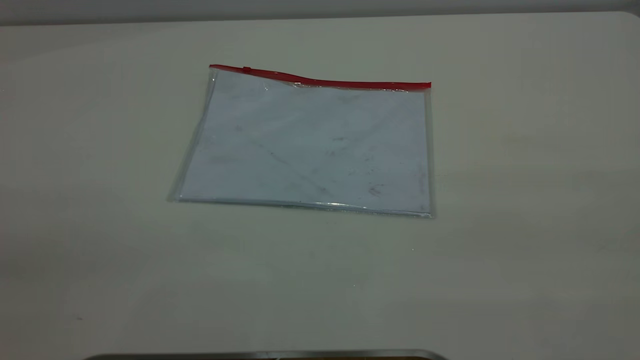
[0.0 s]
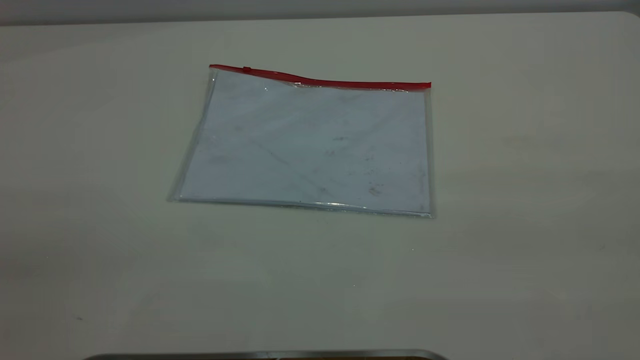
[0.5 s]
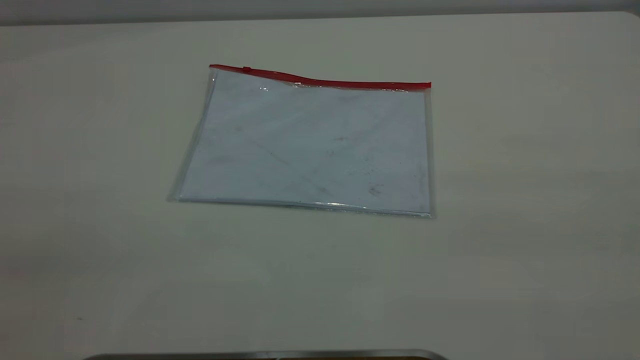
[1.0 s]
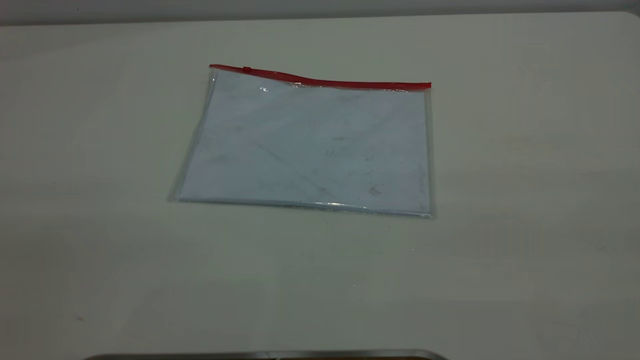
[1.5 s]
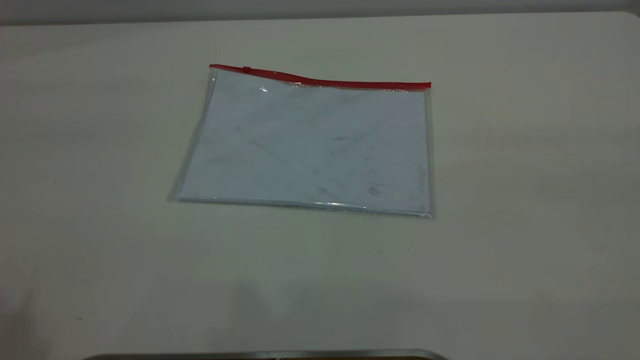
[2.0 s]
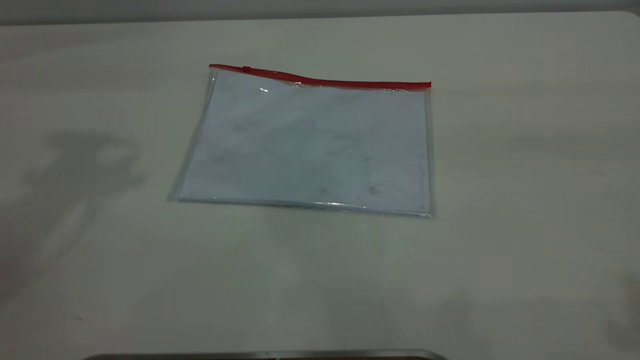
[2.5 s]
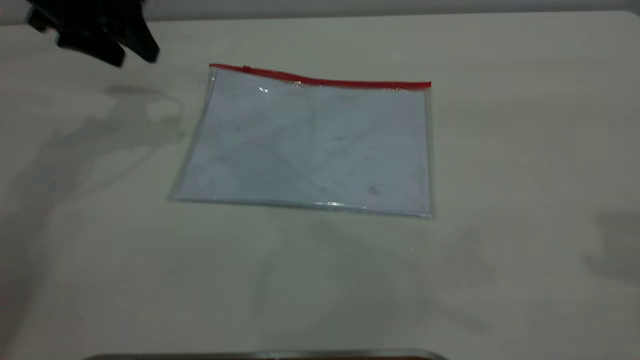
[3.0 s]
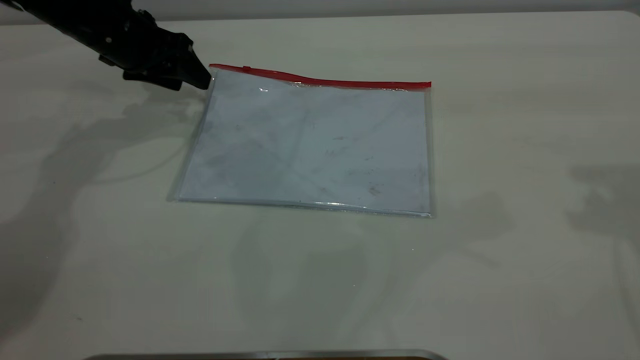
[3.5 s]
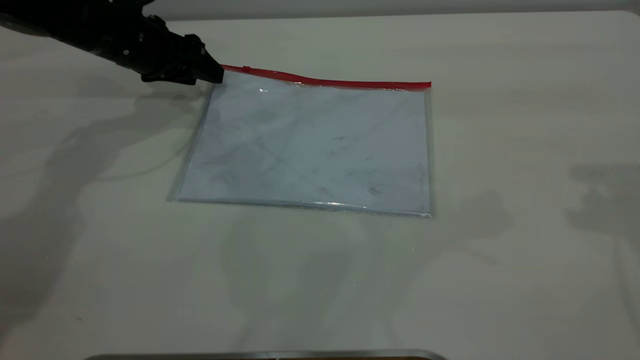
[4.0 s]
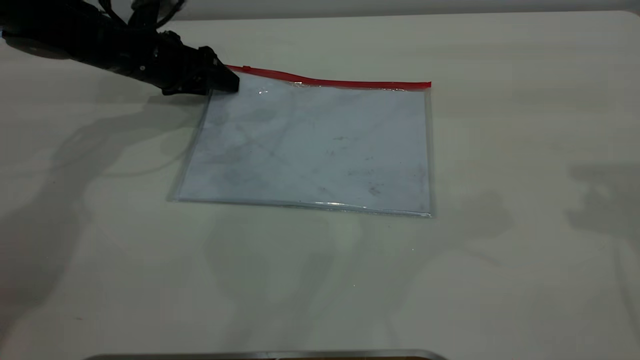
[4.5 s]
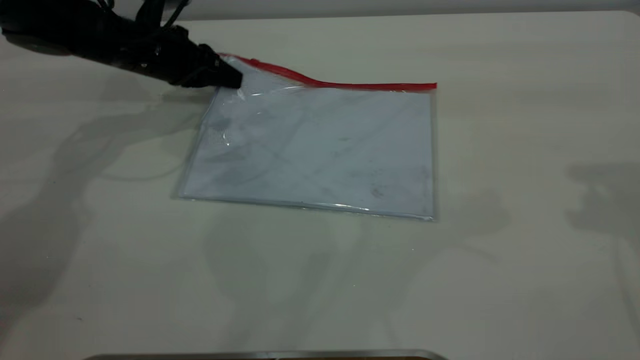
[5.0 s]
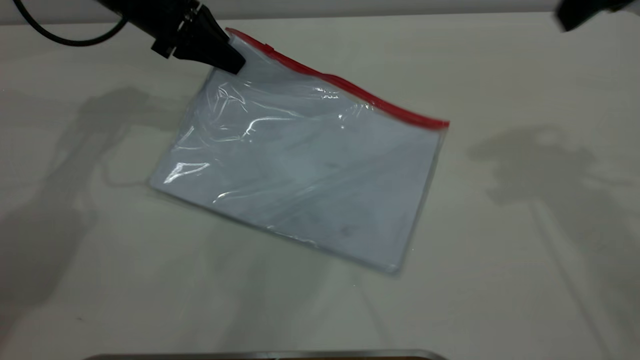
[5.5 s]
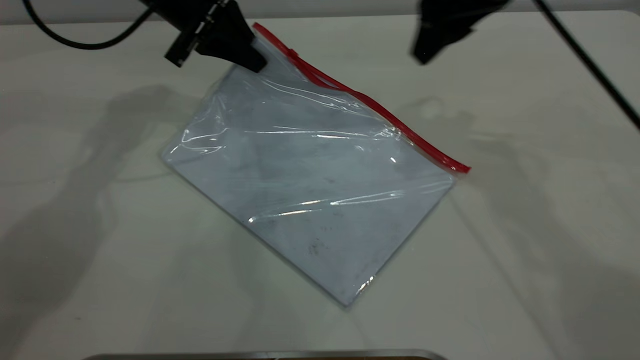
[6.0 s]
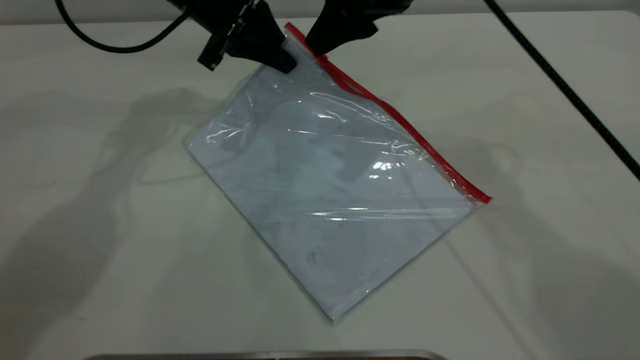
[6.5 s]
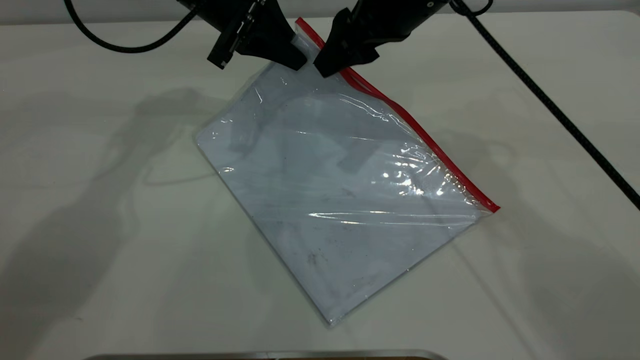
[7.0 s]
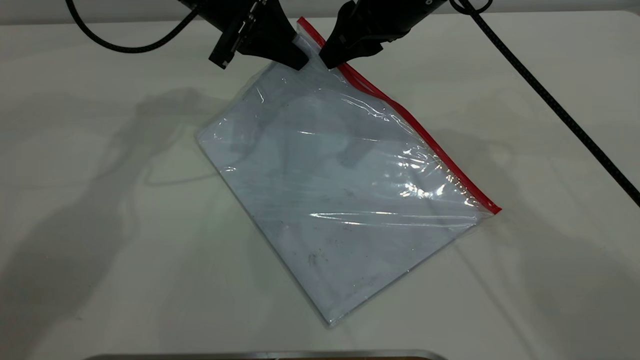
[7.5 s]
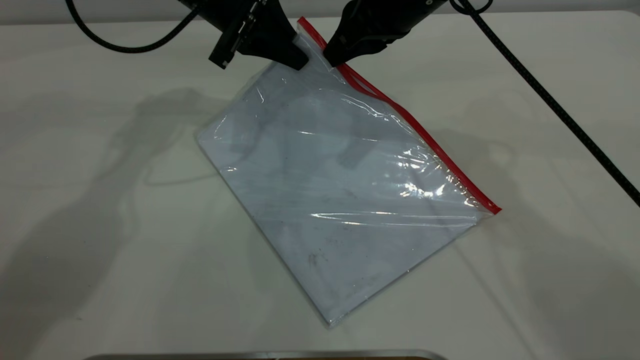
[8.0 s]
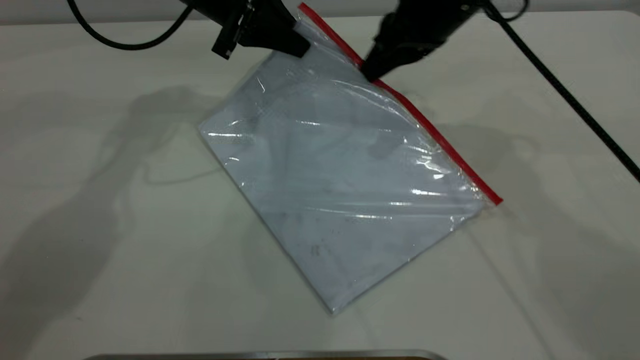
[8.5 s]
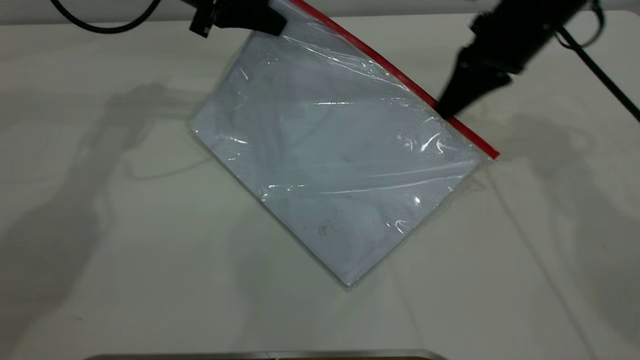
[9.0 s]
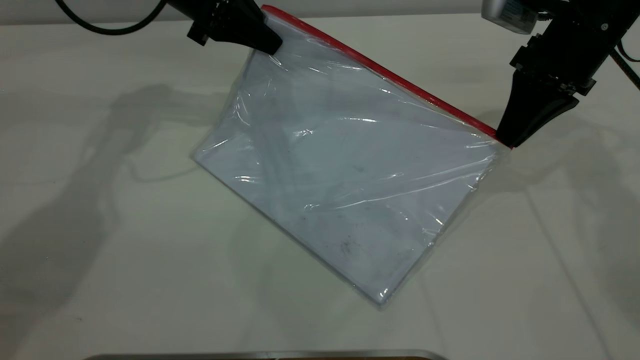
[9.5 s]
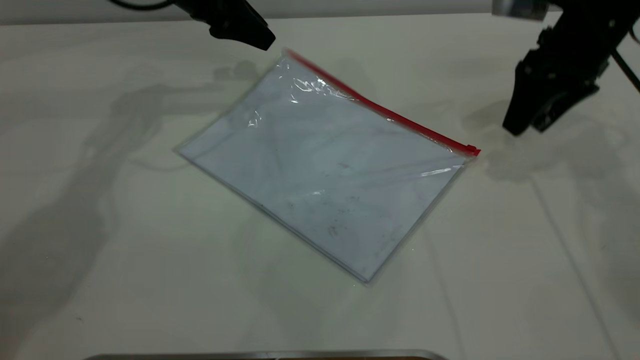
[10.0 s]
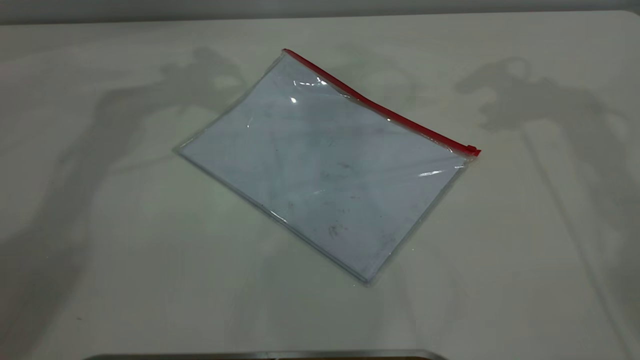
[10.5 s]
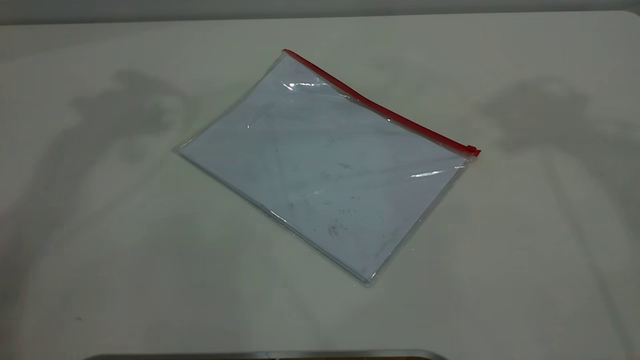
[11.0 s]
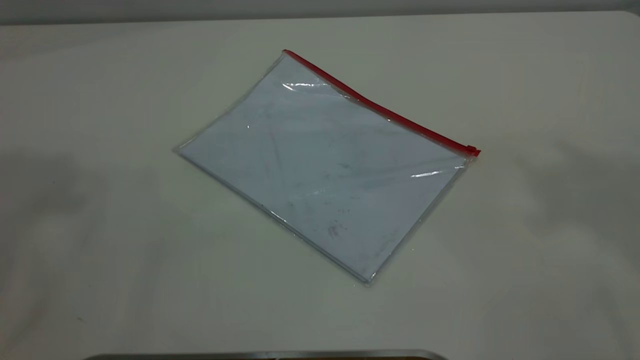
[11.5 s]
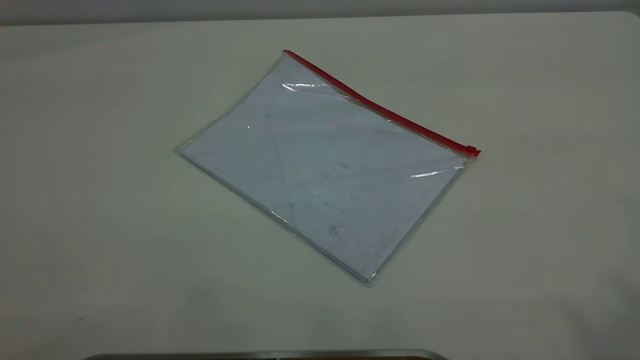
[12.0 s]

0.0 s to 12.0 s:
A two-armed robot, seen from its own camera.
Step, 0.0 to 5.5 s: Pick up the transparent plastic bag with the left gripper.
Step, 6.0 to 9.5 s: Pulling up the zipper on the transparent plastic bag with the right gripper to close it.
2.0 to 4.0 s: The left gripper heads forward and downward, covering about 50 cm.
4.0 to 6.0 s: The left gripper is displaced to the right and upward by some 10 cm, and closes. The right gripper travels to the left, forward and downward by roughly 25 cm.
6.0 to 8.0 s: The right gripper ends up roughly 5 cm from where it was, and closes its fingers.
8.0 to 10.0 s: The right gripper travels to the right by roughly 15 cm, and opens its fingers, while the left gripper changes place by some 5 cm, and opens.
10.0 to 12.0 s: The left gripper moves backward and upward, about 60 cm. The right gripper travels upward and backward by about 50 cm.
